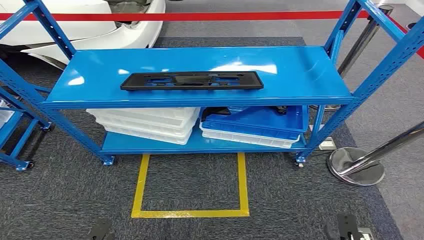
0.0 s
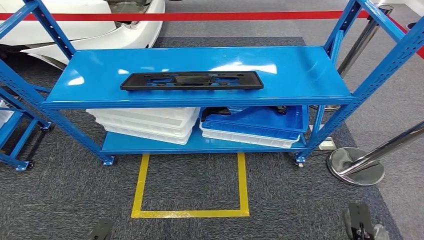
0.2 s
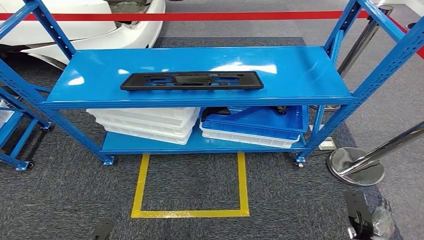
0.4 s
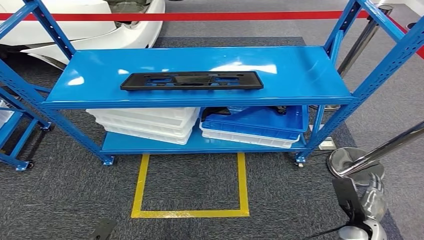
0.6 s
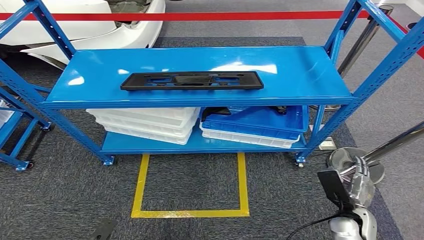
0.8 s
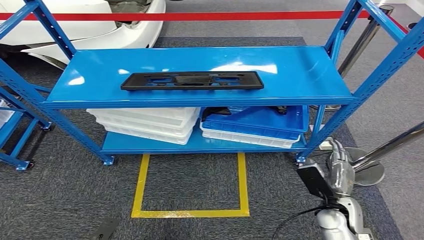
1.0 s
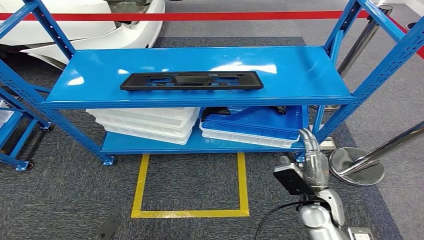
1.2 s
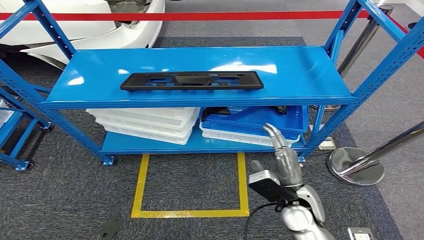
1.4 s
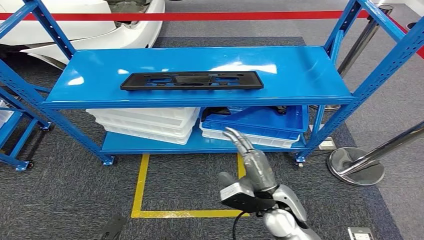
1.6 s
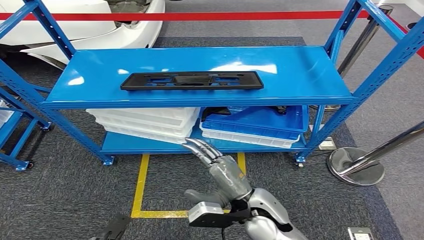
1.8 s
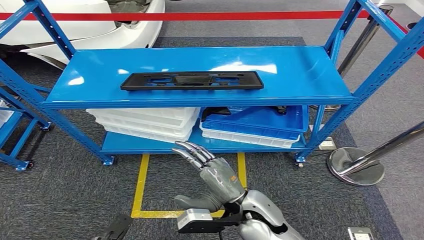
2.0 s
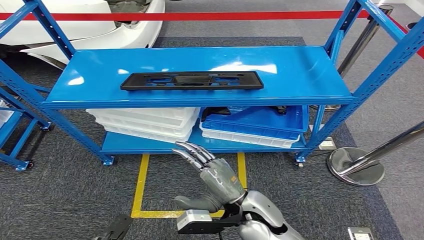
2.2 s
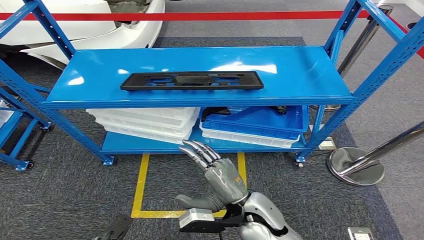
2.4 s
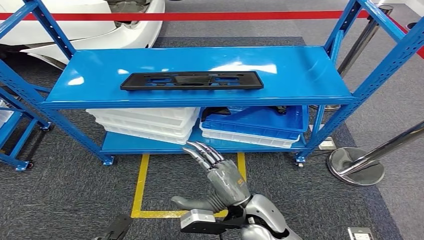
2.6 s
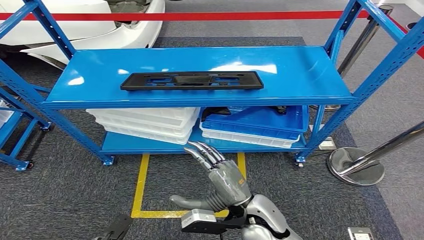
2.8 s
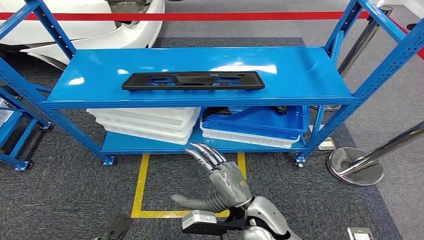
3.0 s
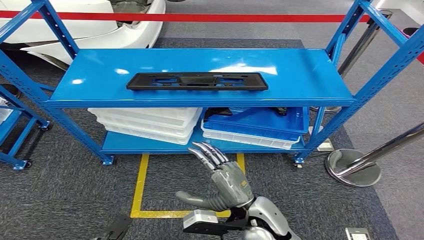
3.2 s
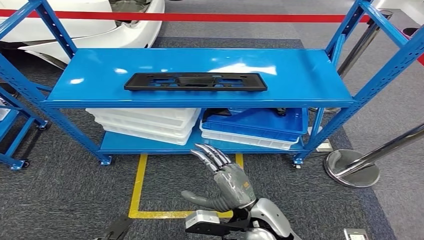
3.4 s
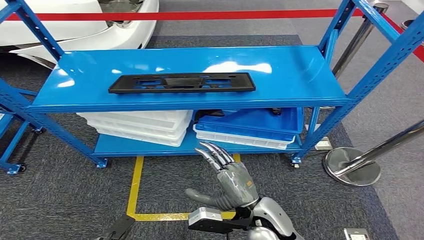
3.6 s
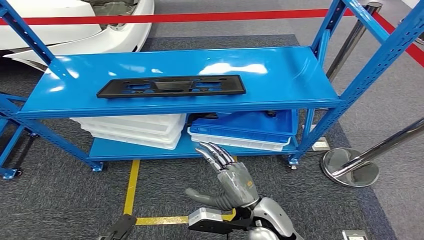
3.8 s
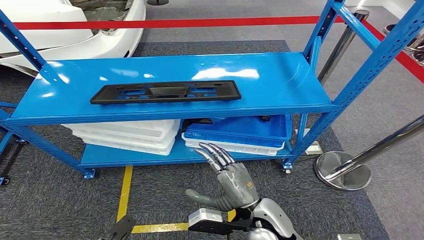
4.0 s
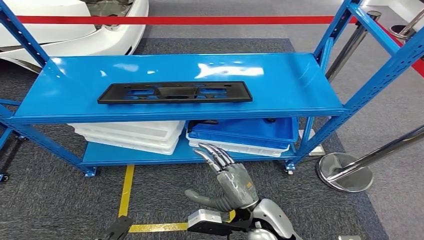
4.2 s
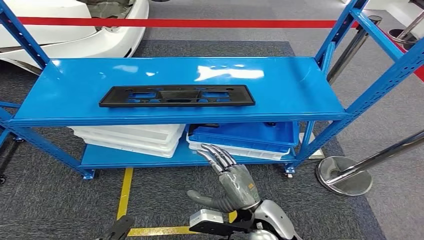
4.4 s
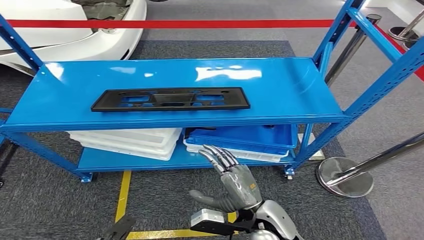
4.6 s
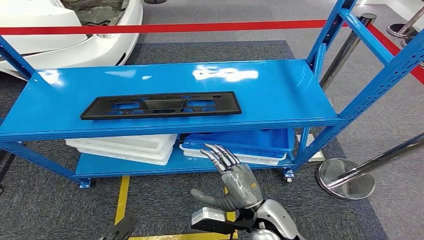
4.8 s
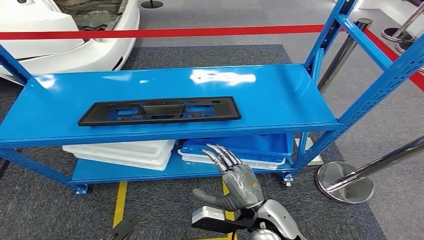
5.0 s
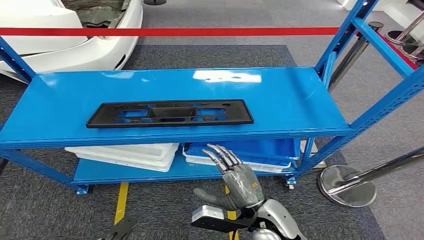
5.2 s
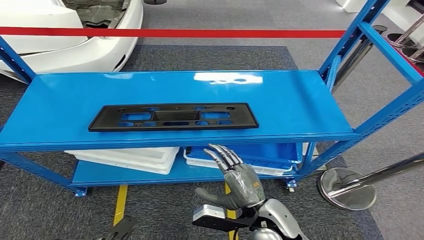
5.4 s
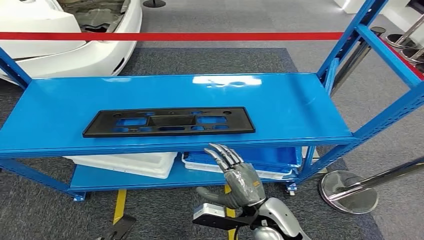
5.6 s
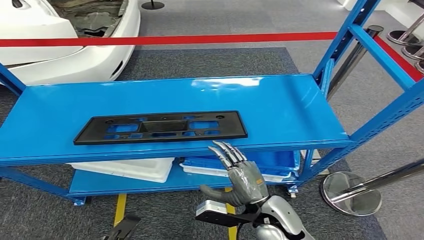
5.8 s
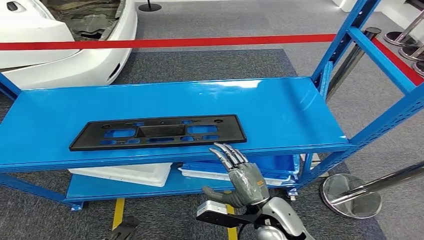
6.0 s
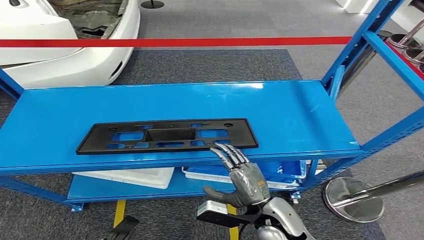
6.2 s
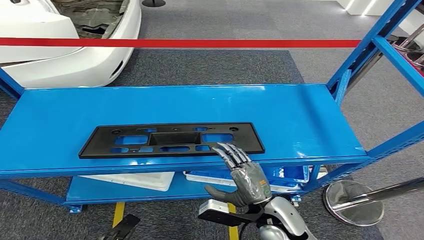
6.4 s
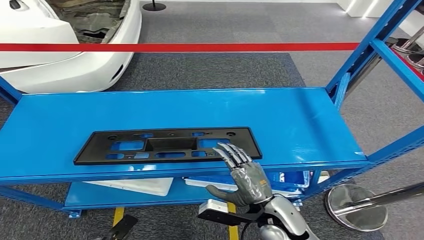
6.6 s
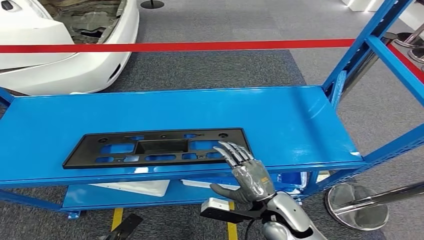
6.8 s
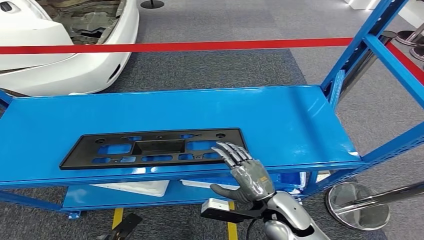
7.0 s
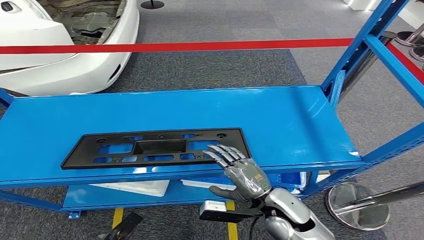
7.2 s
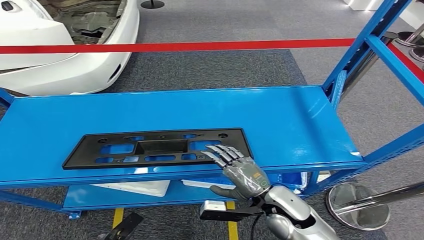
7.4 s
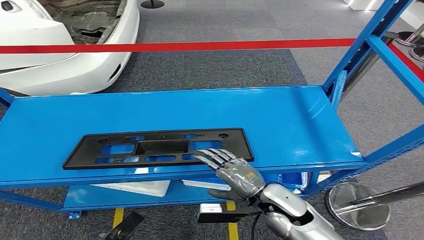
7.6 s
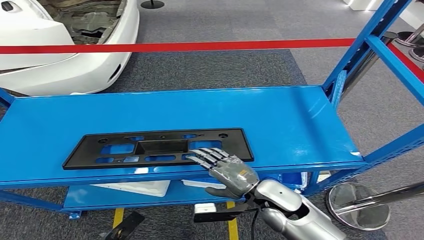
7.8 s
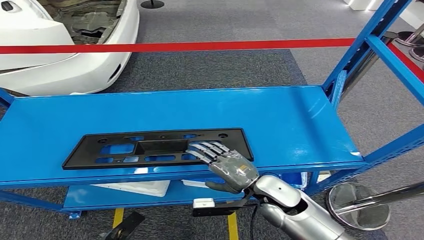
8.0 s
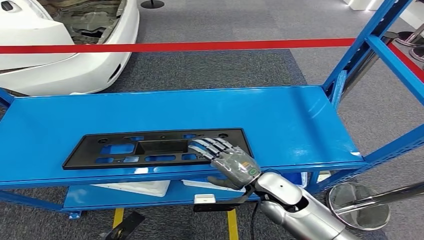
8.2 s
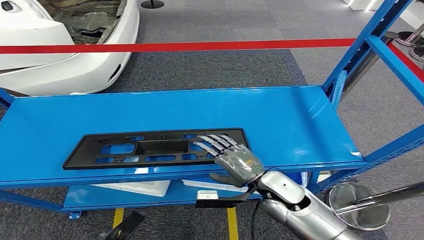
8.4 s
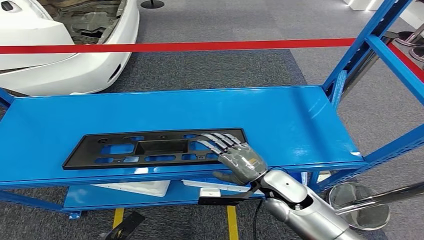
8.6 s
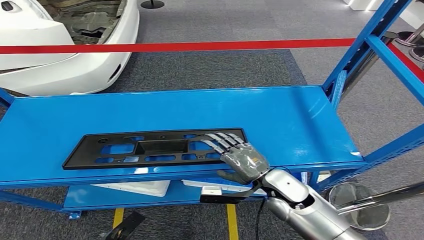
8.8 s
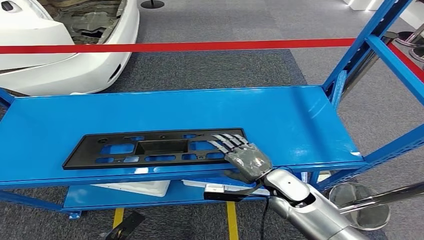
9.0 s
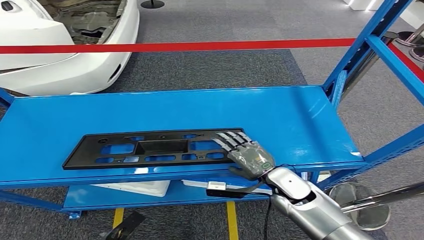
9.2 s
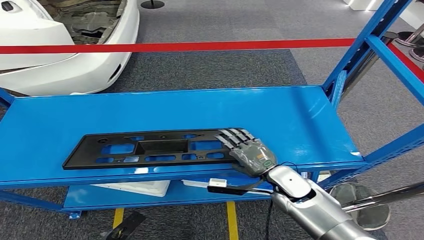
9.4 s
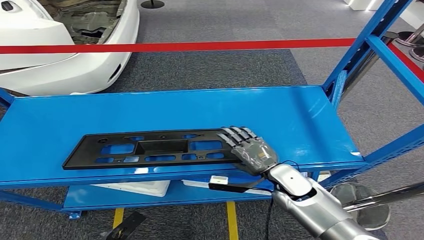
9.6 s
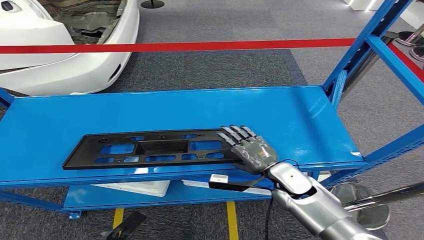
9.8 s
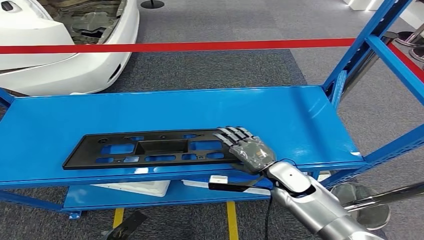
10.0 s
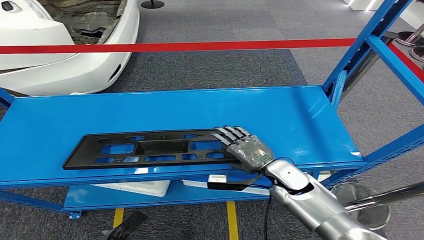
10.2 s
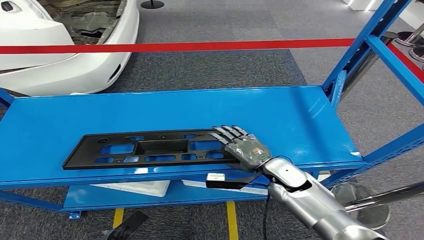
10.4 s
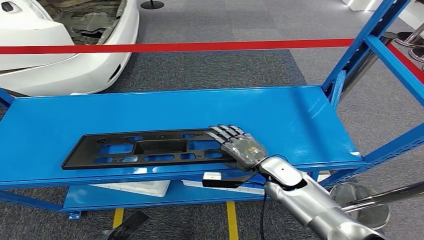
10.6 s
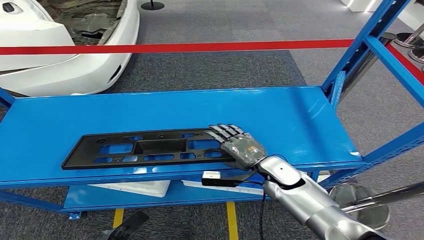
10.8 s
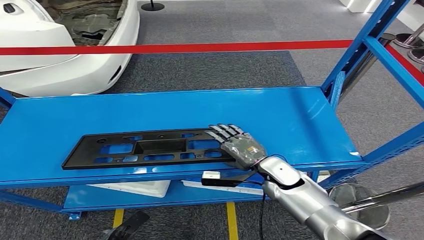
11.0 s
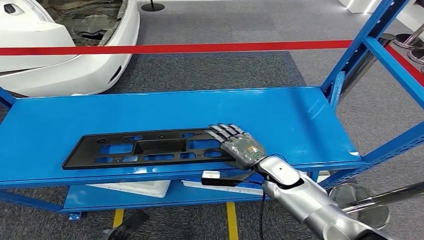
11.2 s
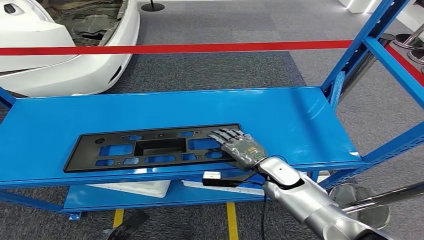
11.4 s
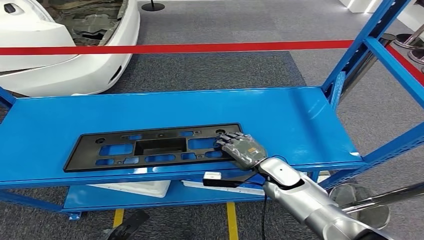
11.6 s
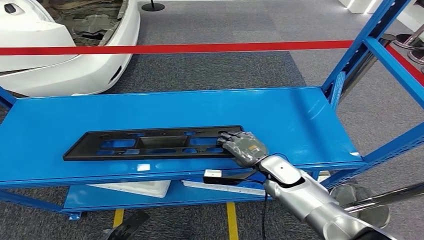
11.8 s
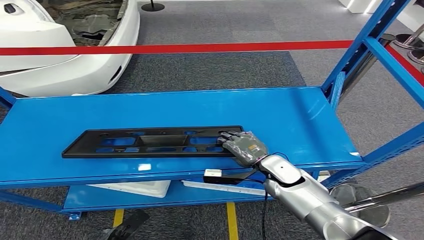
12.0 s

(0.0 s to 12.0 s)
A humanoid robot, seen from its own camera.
1.6 s - 3.0 s: The right hand ends up about 5 cm from where it was.
7.6 s - 9.0 s: There are only small adjustments of the hands.
9.0 s - 12.0 s: The hands move only a little.

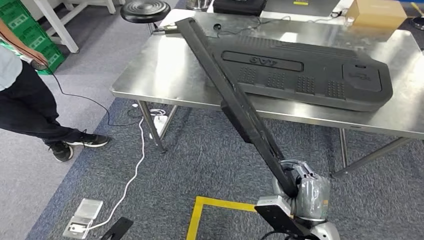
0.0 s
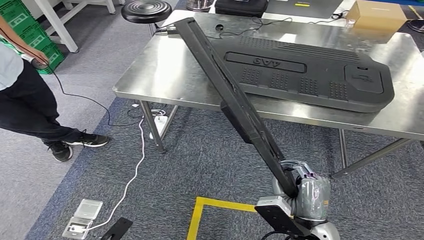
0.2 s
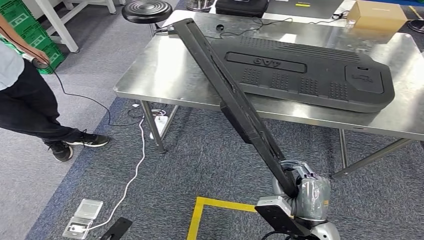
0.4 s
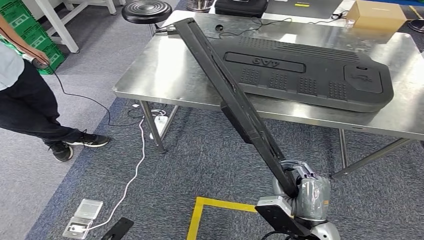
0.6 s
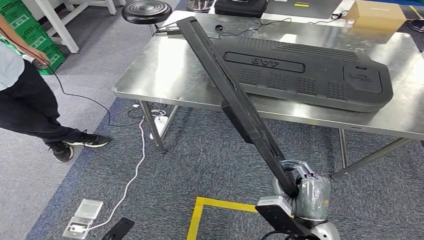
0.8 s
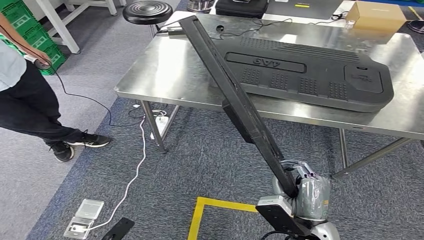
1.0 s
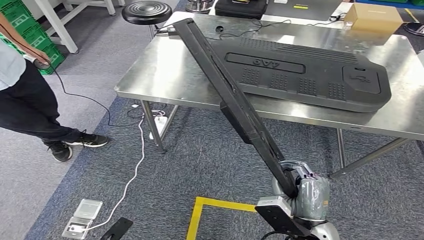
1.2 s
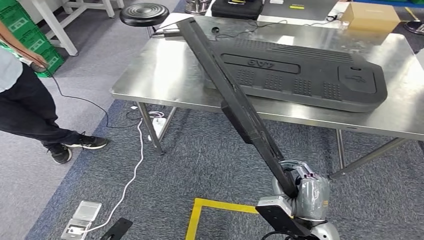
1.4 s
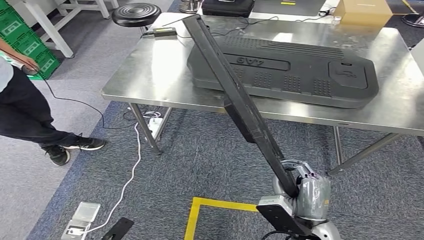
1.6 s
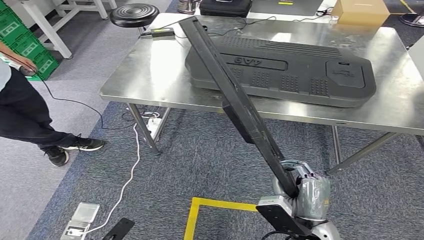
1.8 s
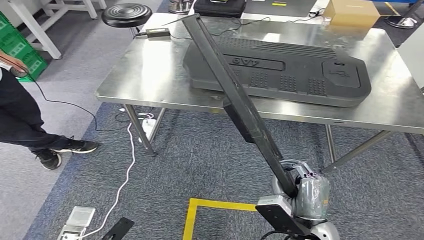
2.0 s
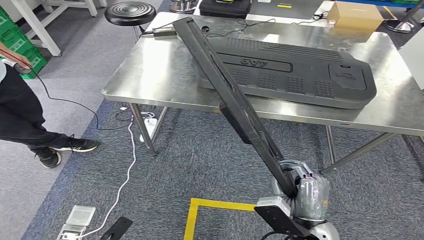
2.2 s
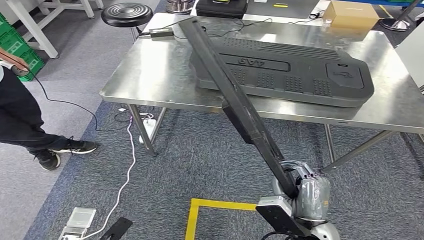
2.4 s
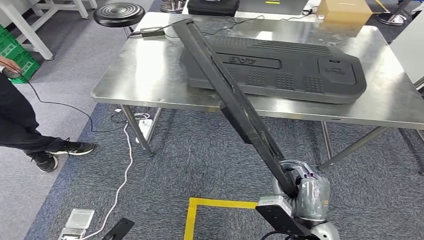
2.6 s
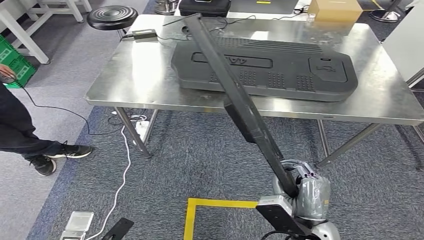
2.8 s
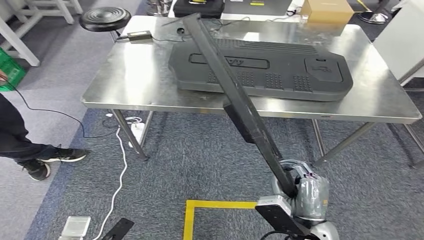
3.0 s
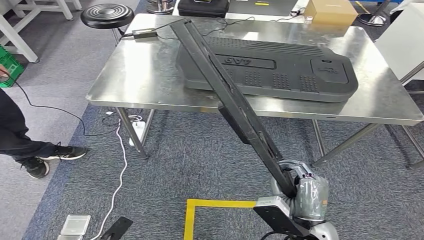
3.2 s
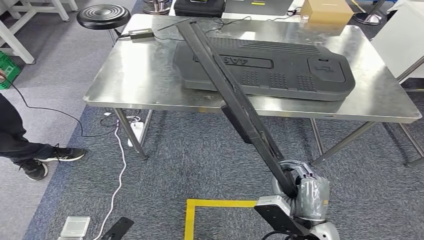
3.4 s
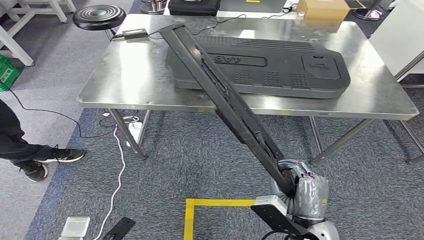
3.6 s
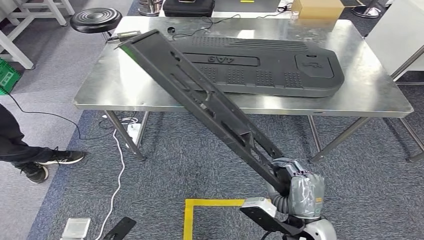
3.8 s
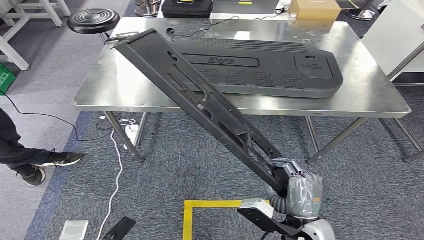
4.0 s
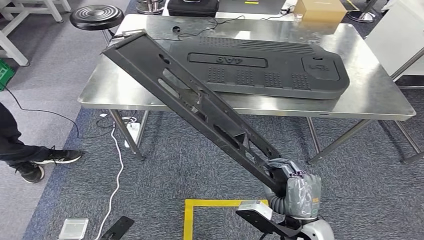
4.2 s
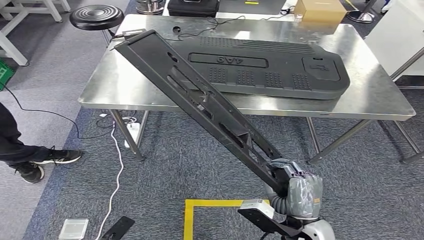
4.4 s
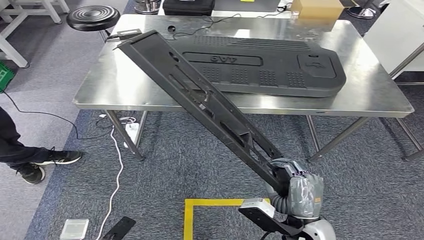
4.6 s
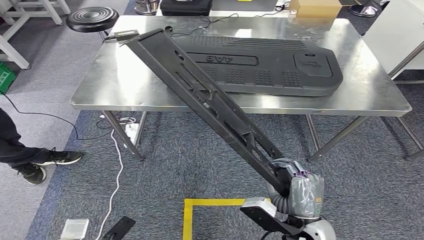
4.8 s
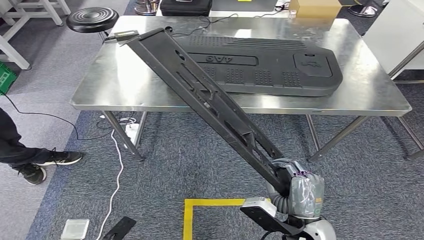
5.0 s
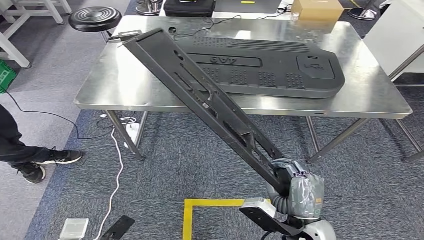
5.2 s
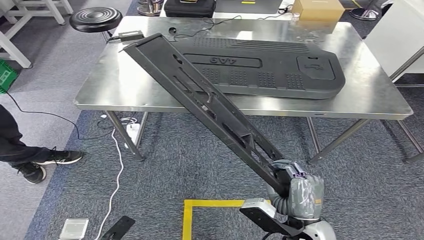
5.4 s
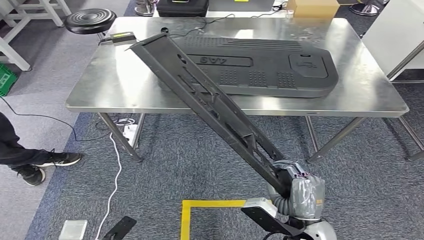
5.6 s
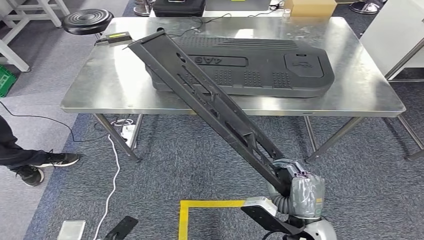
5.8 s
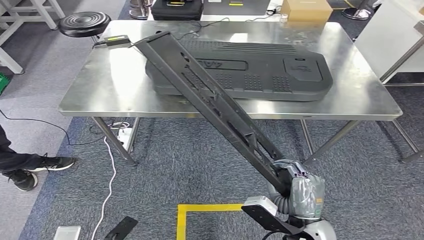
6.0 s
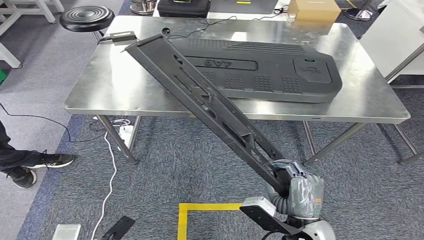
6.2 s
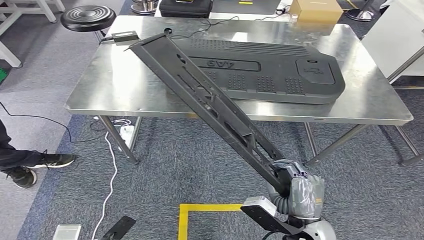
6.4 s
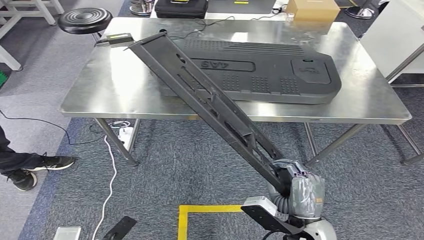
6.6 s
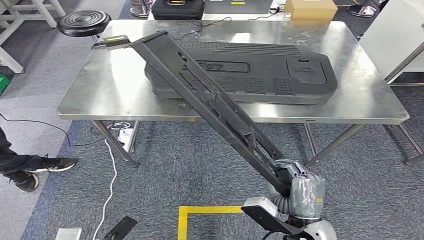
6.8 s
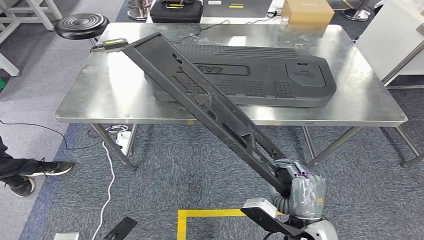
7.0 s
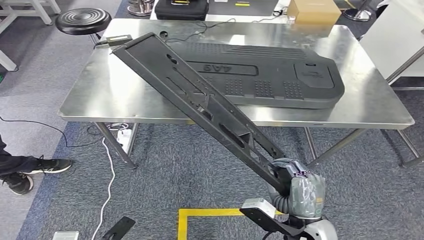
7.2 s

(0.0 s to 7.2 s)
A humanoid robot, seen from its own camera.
0.0 s - 1.4 s: Neither hand changes place.
